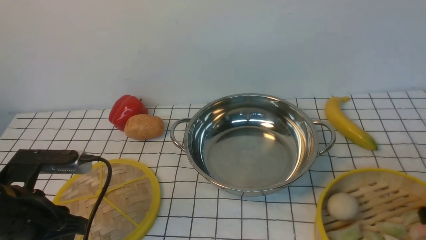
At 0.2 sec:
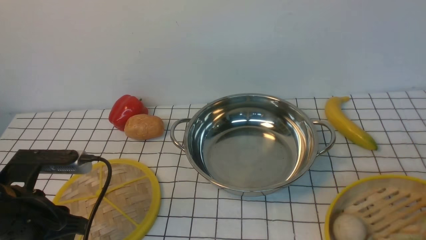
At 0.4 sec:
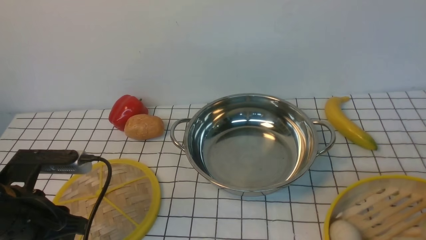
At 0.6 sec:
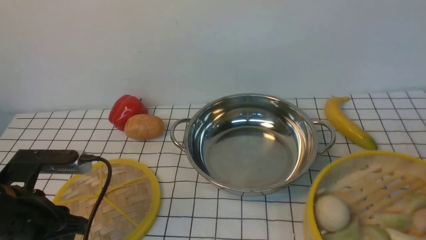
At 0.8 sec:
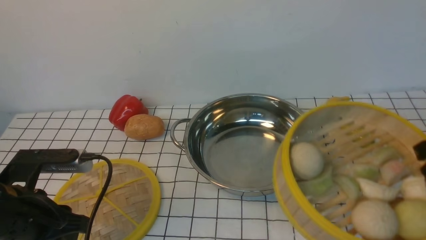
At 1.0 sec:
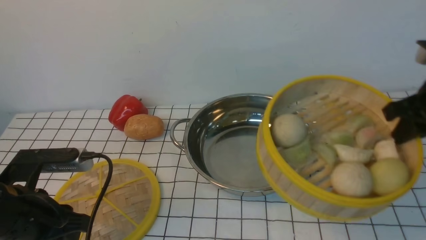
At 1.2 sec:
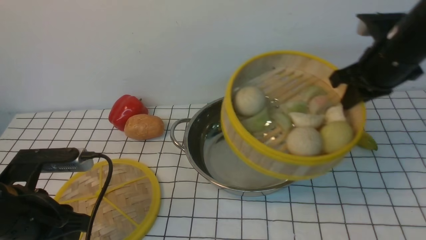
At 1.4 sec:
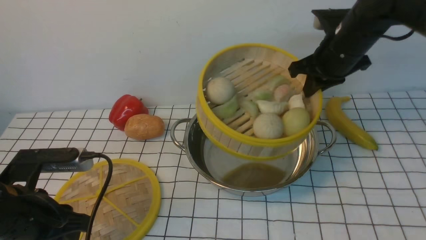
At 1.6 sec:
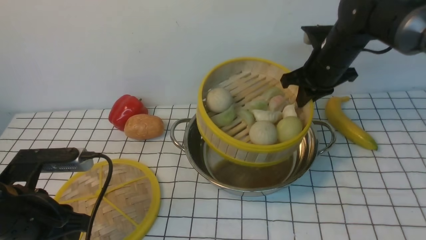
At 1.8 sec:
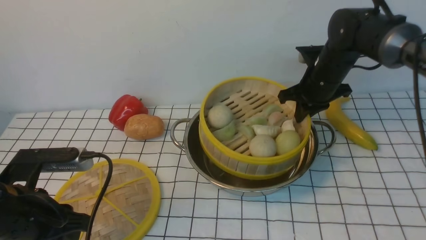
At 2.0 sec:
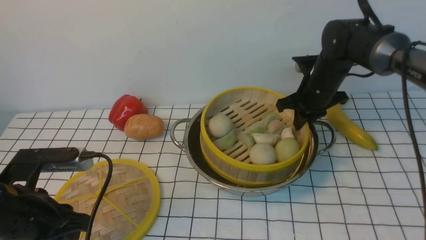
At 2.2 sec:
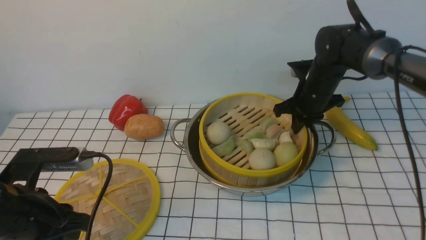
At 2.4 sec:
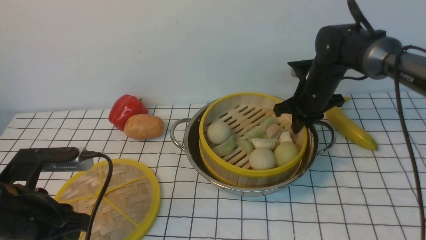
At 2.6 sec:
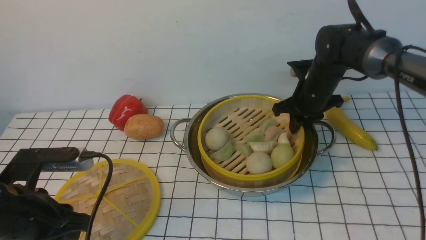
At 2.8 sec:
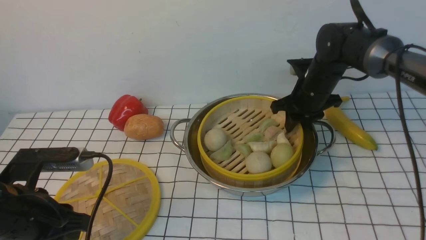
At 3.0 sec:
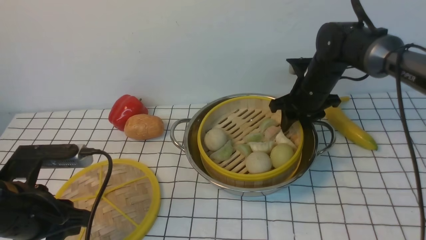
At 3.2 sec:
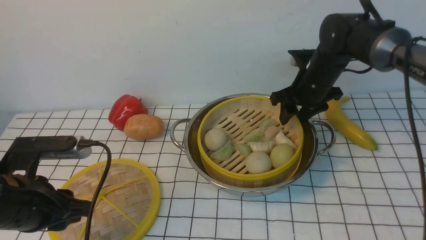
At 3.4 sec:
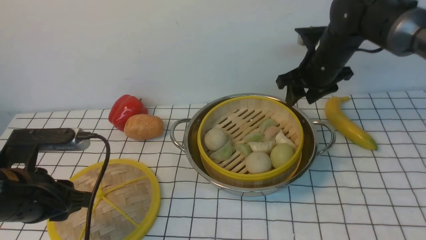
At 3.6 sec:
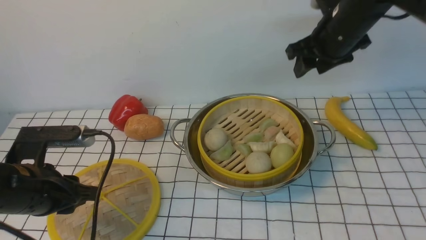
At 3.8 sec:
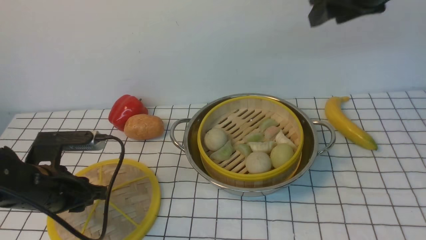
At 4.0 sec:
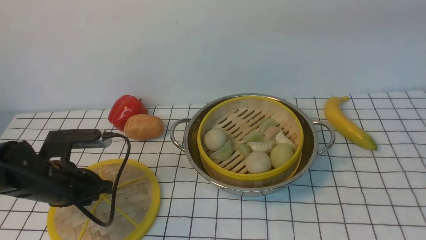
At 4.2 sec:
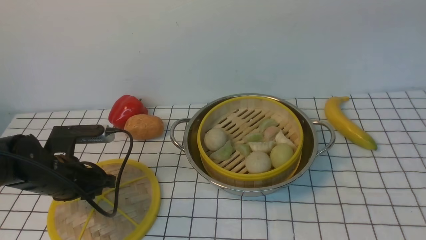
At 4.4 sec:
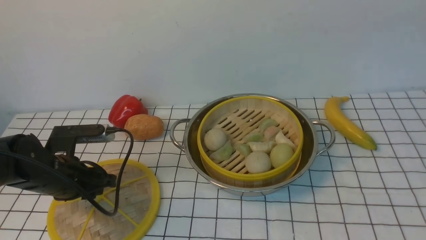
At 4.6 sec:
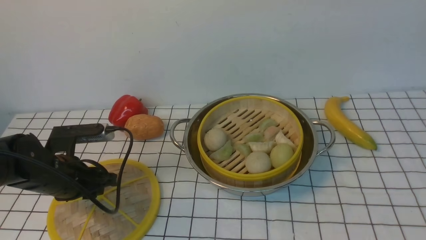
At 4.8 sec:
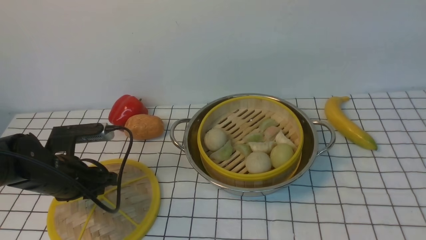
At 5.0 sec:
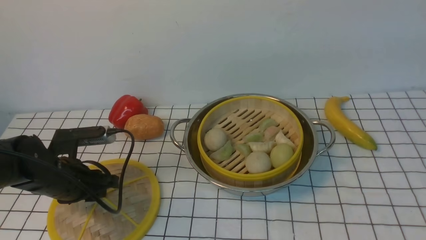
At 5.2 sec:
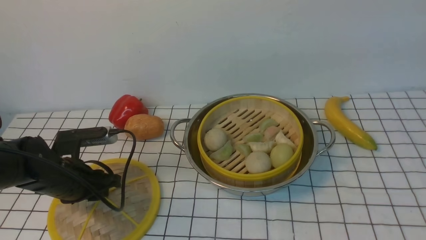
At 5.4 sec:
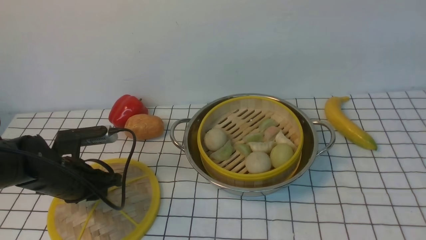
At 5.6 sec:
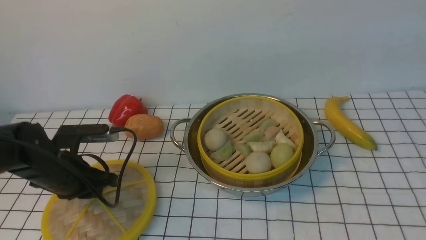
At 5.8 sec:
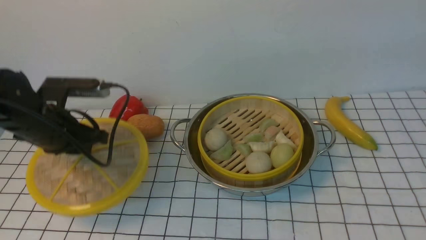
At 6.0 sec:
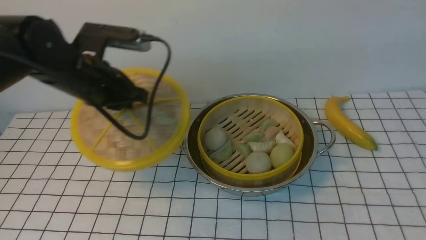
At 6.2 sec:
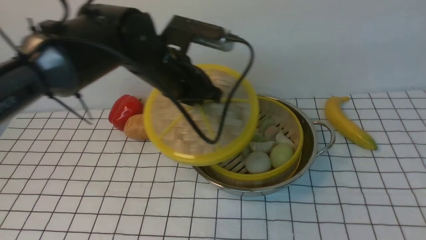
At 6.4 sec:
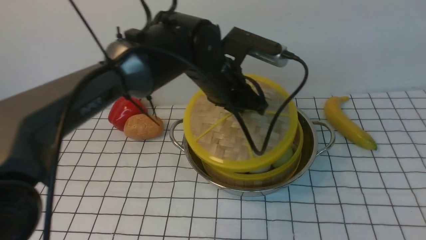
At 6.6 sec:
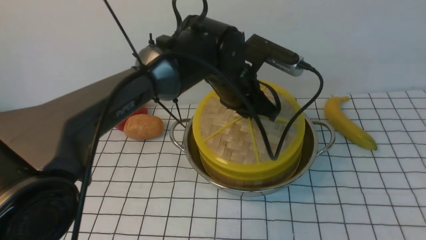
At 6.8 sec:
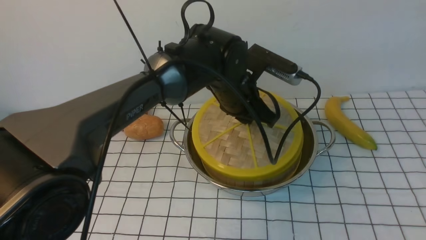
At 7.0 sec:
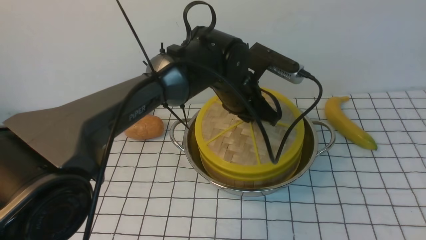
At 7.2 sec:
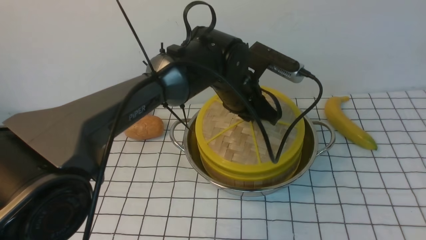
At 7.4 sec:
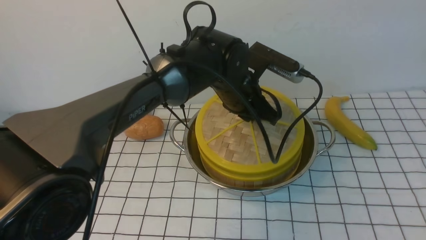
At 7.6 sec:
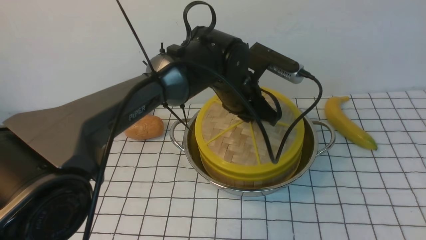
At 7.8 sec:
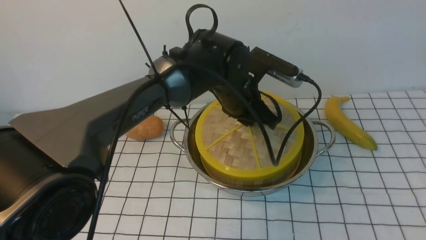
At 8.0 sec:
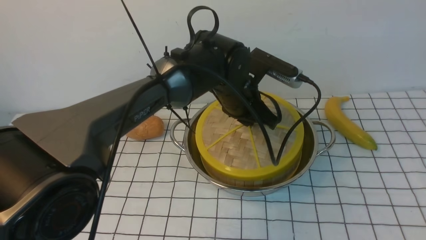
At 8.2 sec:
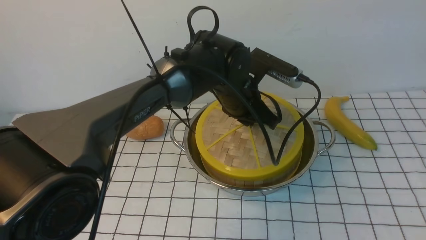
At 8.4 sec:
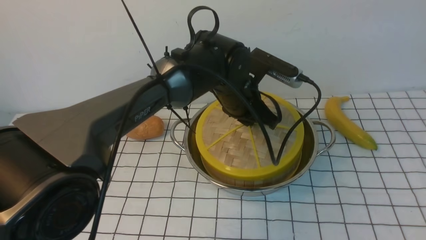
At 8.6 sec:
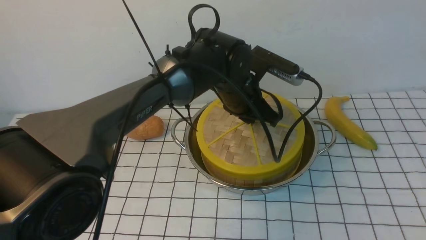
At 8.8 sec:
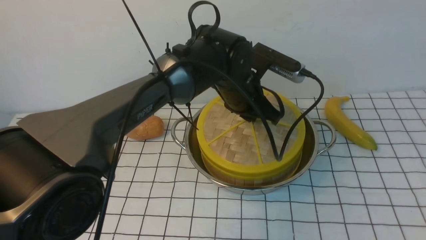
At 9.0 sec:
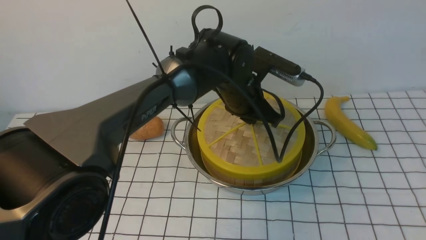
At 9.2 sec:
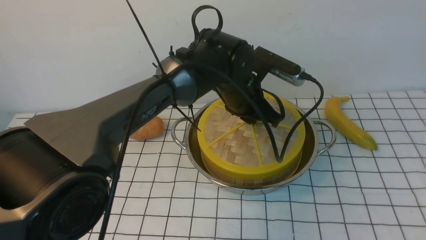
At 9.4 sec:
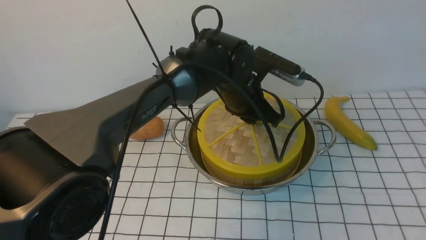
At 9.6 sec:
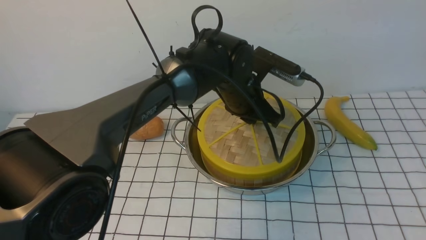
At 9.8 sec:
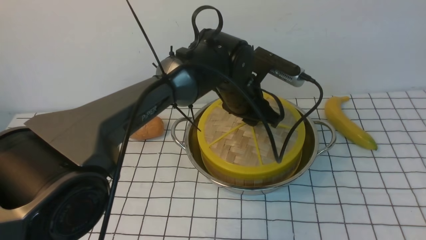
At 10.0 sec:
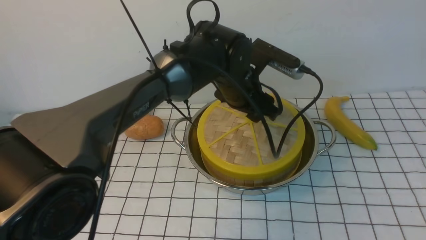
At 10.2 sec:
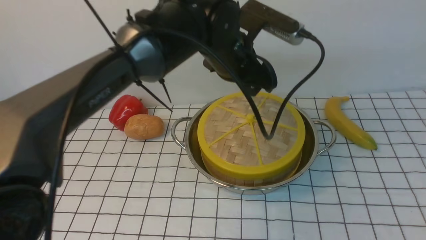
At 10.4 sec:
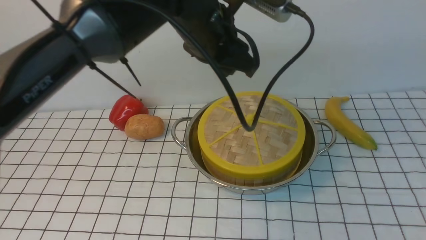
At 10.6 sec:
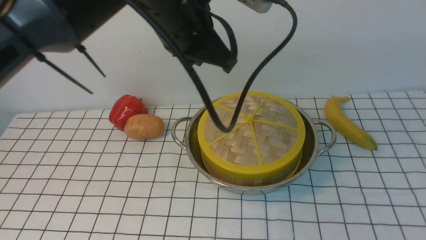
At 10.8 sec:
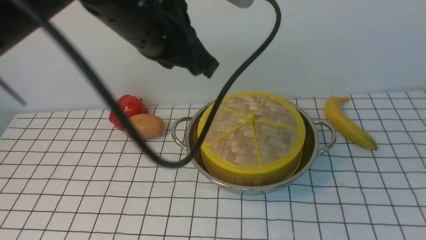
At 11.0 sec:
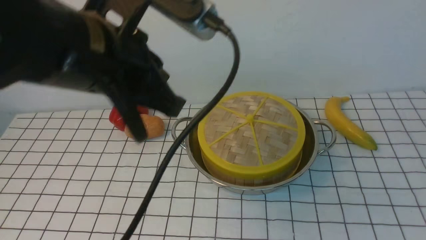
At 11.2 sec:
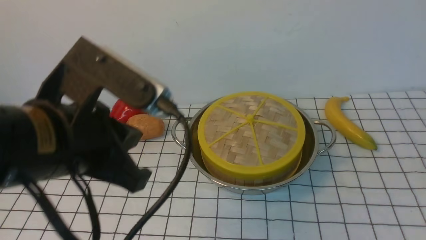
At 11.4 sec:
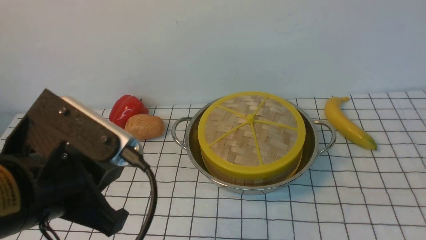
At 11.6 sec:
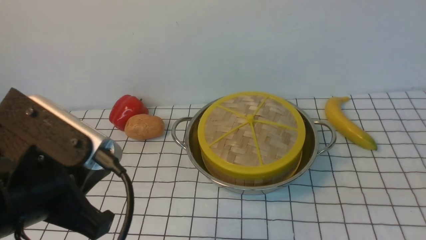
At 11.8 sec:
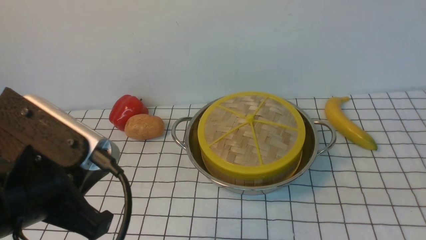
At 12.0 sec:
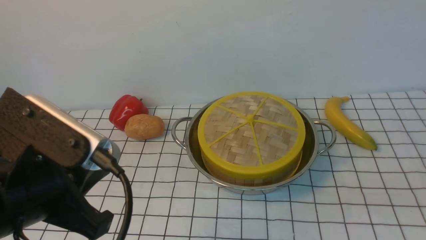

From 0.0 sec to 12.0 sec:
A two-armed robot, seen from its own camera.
Task of the whole recording: place the steamer in the pot on the white tablecloth, and put the lid on the steamer.
Step, from 0.6 sec to 3.2 sec: use the right arm to put the steamer into the iron steamer pot in the middle.
Step, from 3.4 sec to 5.6 sec: use the left arm to lift the lid of the steamer.
Step, from 5.8 sec to 10.0 sec: use the left arm to place the steamer lid on the steamer.
From 0.0 sec to 1.6 sec: The right gripper is displaced forward and to the left by some 30 cm.
From 1.6 sec to 3.0 sec: The right gripper moves roughly 5 cm, and opens up.
From 3.0 sec to 4.4 sec: The left gripper goes approximately 10 cm forward and downward. Meanwhile the right gripper heads upward and backward, covering roughly 50 cm.
From 4.4 sec to 6.0 sec: The left gripper is displaced upward, to the right and forward by some 15 cm.
From 6.0 sec to 7.6 sec: The left gripper moves to the right, about 20 cm.
From 7.6 sec to 9.0 sec: Both grippers stay about where they are.
From 9.0 sec to 10.4 sec: The left gripper is displaced upward by approximately 15 cm, and opens.
From 10.4 sec to 12.0 sec: The left gripper shifts about 25 cm backward and to the left, and closes. The right gripper is displaced downward and backward by some 20 cm, and closes its fingers.

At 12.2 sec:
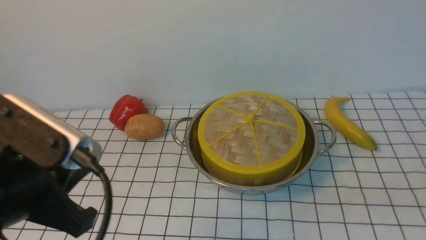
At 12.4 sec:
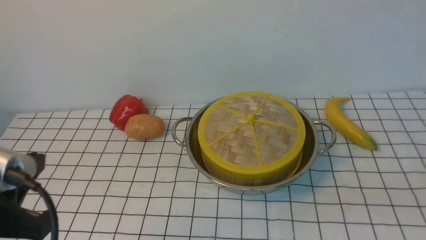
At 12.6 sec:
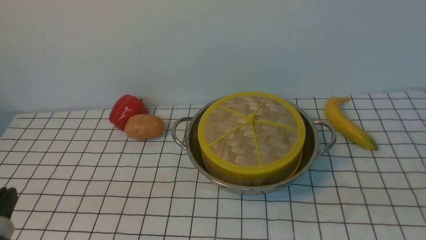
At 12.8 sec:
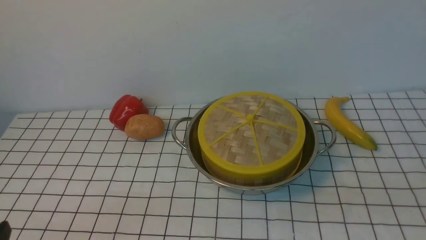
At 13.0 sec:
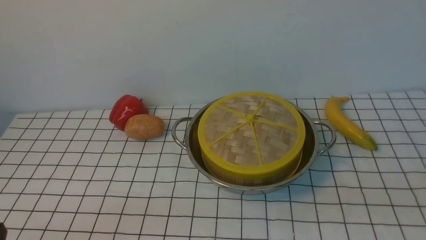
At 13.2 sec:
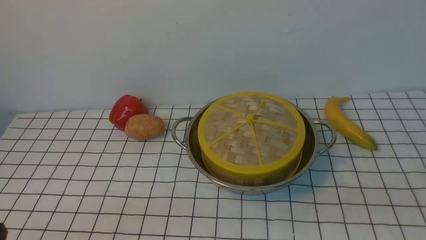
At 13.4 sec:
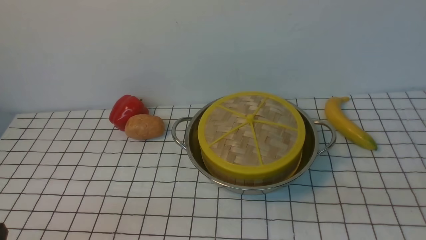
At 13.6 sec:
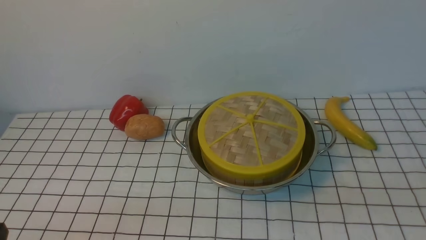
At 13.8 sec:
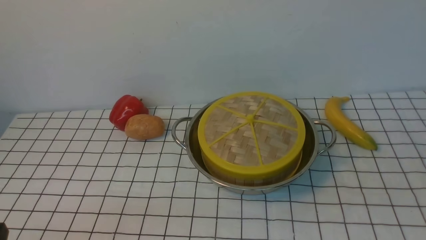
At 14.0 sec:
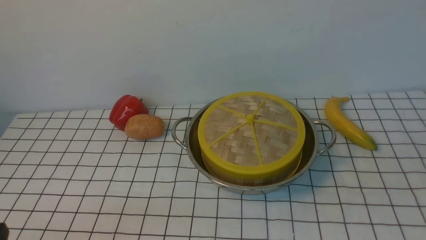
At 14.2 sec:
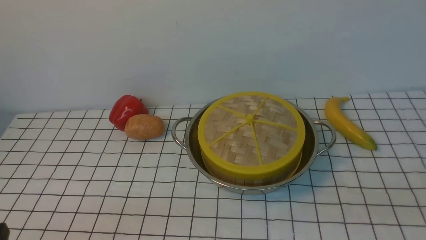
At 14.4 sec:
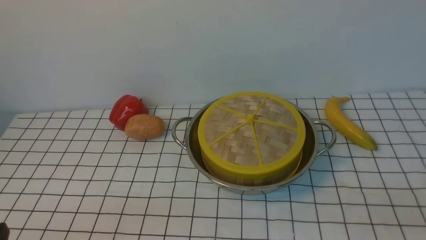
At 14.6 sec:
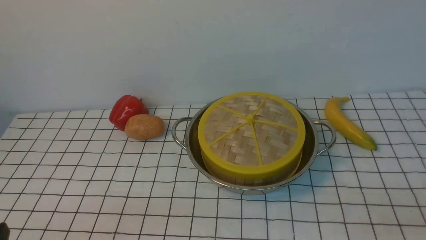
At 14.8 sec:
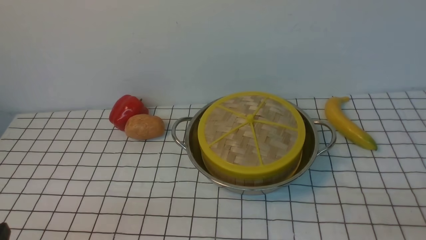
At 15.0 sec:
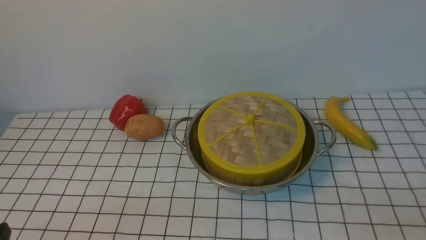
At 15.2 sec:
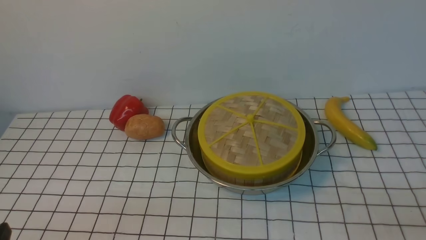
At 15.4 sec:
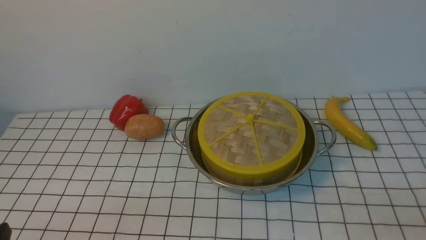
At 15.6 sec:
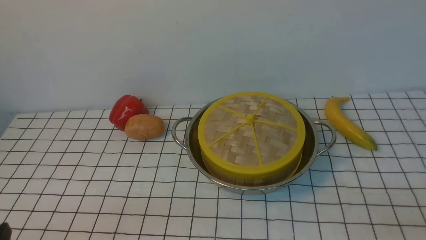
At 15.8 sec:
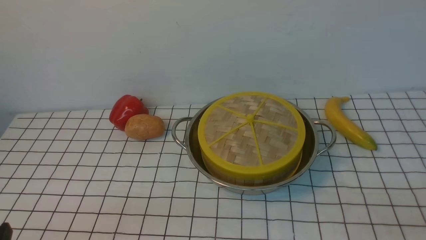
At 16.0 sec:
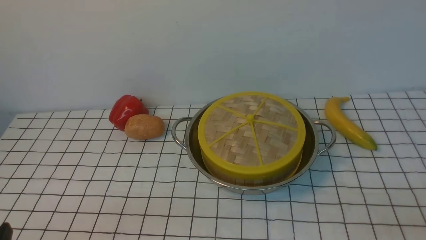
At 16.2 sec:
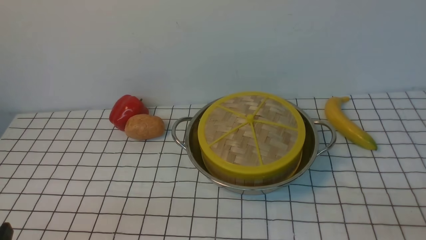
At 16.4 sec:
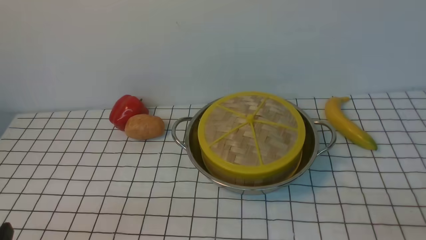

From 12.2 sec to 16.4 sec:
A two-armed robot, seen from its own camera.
Task of the whole recording: place the steamer in the pot on the white tablecloth, and put the lid on the steamer.
From 12.2 sec to 13.6 sec: The right gripper opens. The left gripper heads downward, backward and to the left, covering about 15 cm.
From 15.0 sec to 16.4 sec: Both grippers stay about where they are.
